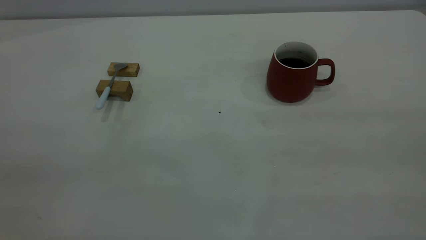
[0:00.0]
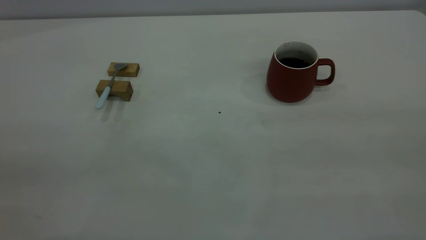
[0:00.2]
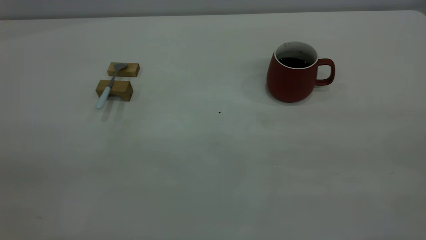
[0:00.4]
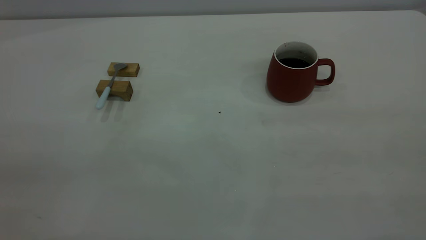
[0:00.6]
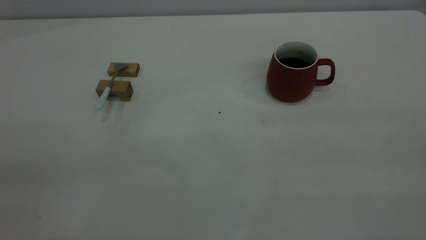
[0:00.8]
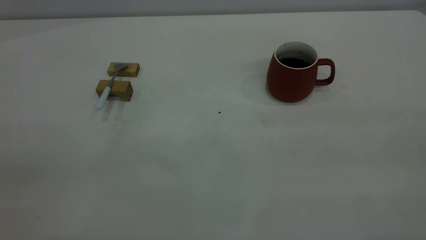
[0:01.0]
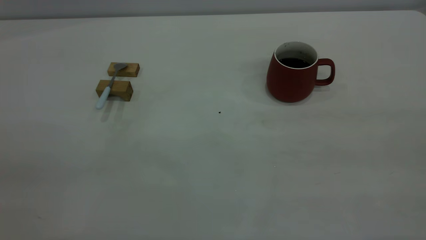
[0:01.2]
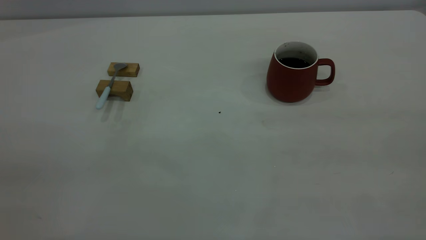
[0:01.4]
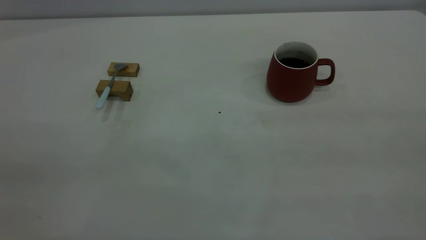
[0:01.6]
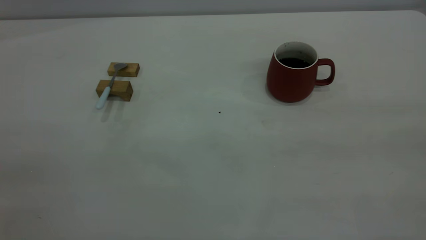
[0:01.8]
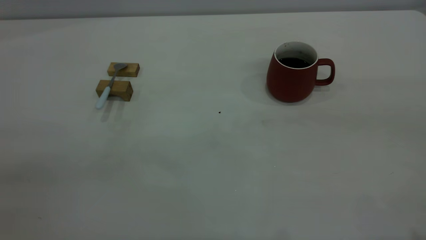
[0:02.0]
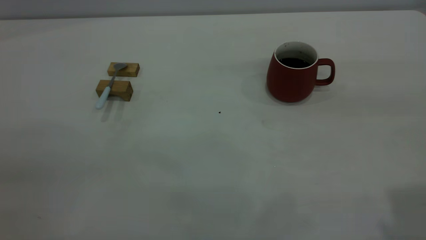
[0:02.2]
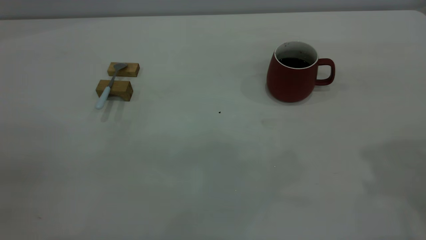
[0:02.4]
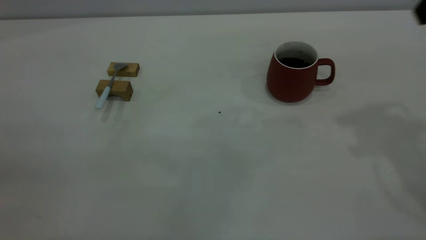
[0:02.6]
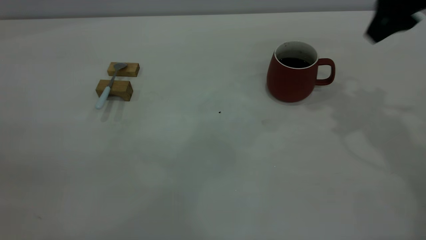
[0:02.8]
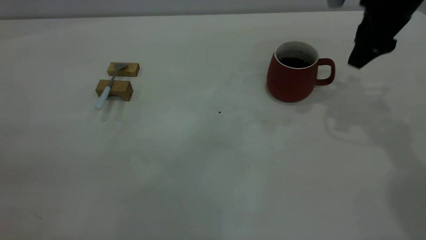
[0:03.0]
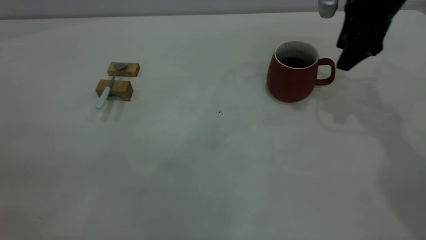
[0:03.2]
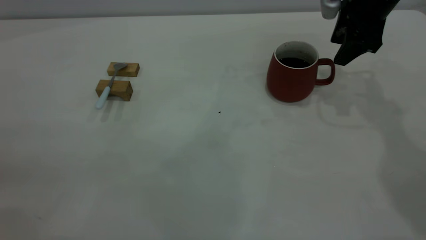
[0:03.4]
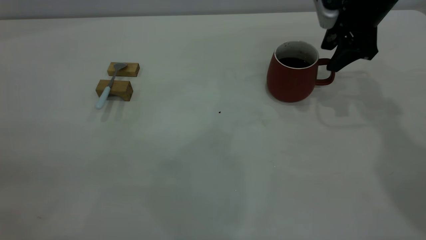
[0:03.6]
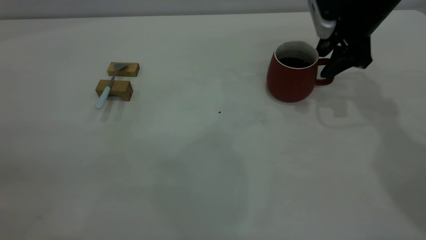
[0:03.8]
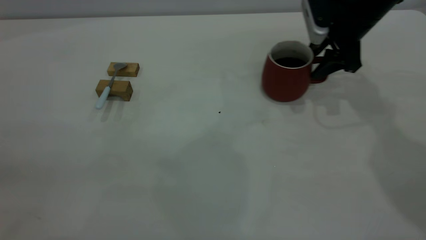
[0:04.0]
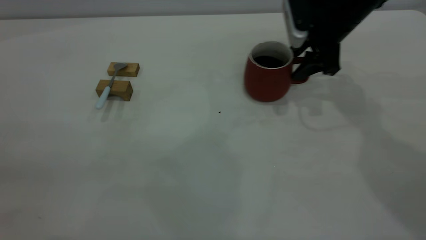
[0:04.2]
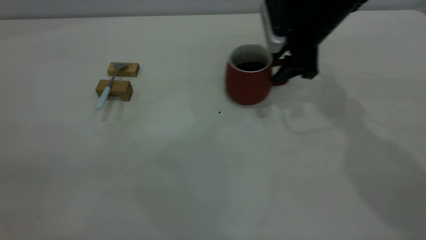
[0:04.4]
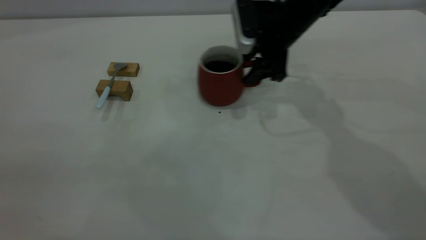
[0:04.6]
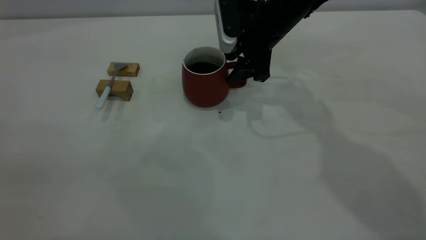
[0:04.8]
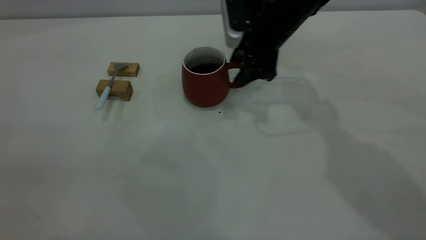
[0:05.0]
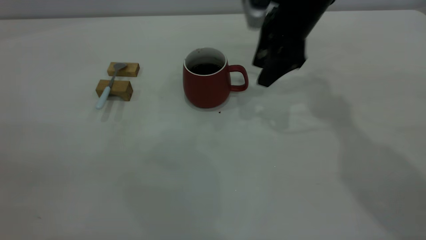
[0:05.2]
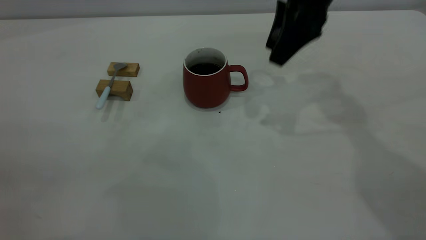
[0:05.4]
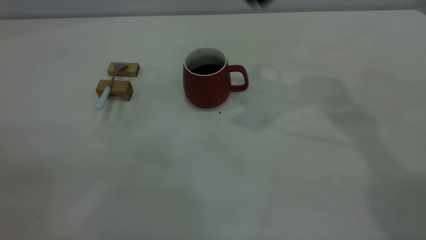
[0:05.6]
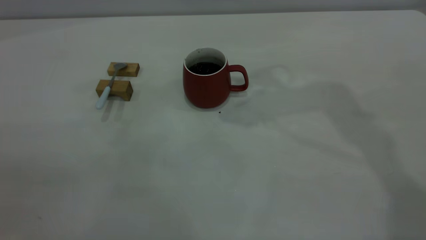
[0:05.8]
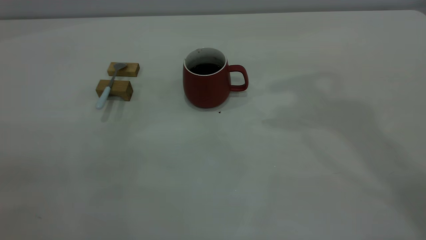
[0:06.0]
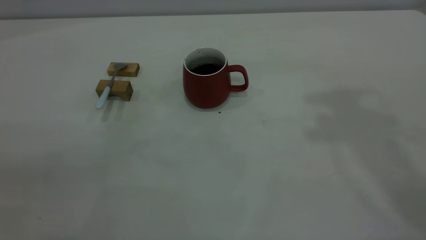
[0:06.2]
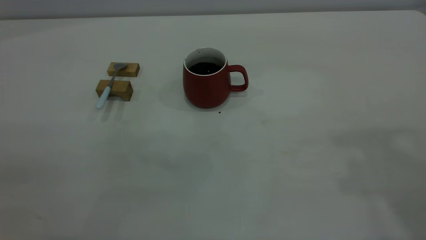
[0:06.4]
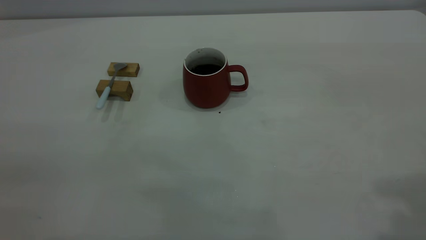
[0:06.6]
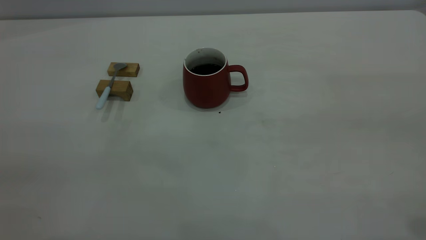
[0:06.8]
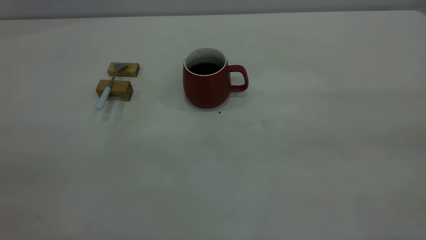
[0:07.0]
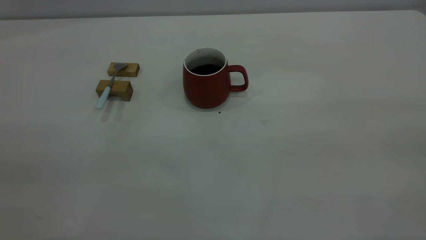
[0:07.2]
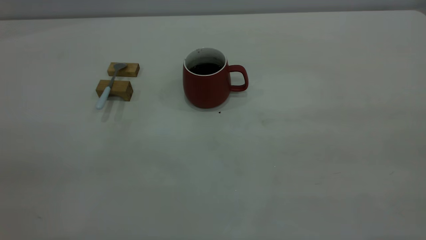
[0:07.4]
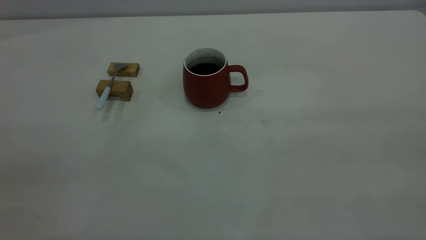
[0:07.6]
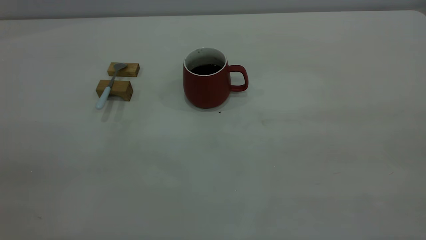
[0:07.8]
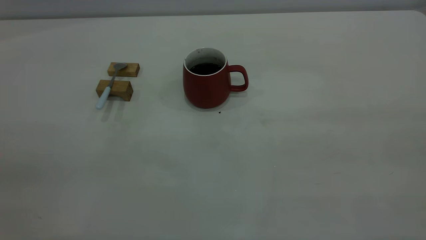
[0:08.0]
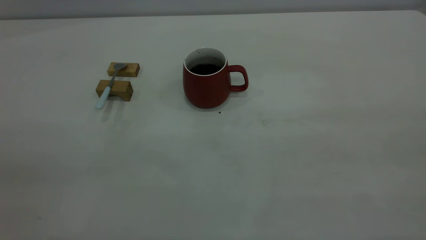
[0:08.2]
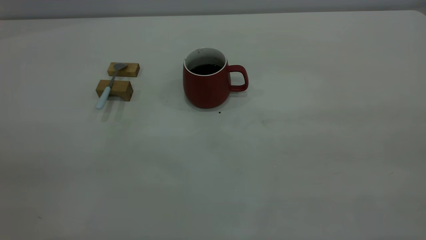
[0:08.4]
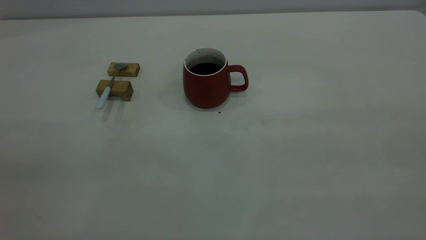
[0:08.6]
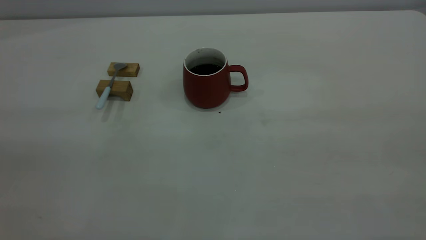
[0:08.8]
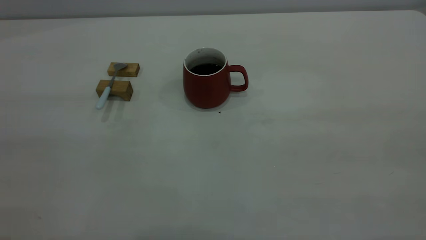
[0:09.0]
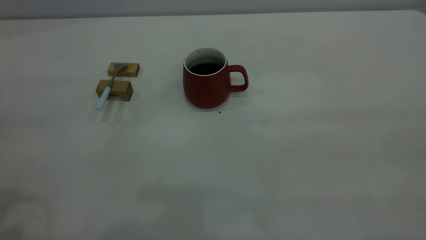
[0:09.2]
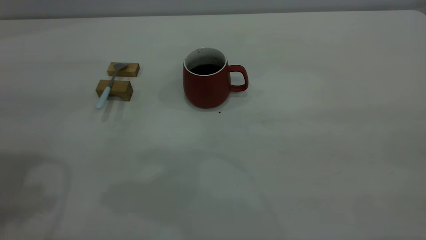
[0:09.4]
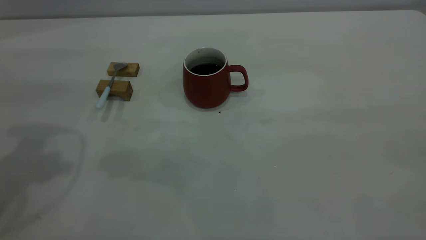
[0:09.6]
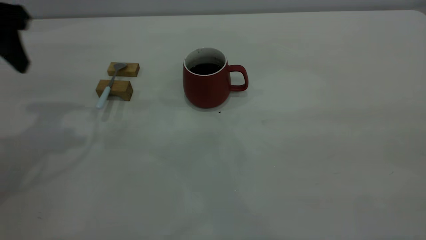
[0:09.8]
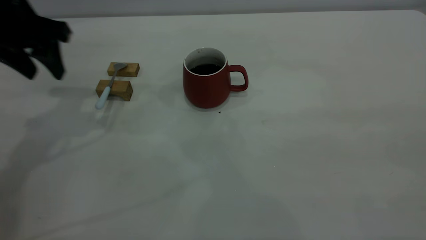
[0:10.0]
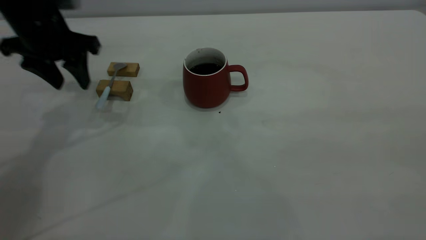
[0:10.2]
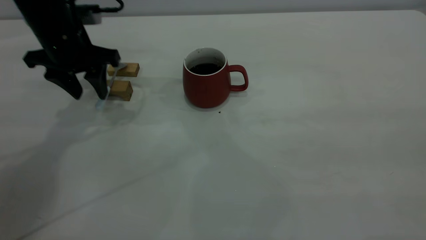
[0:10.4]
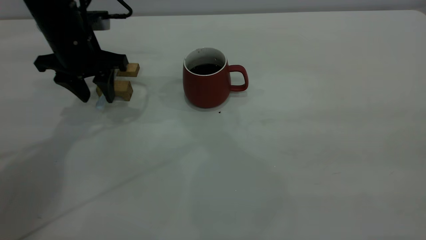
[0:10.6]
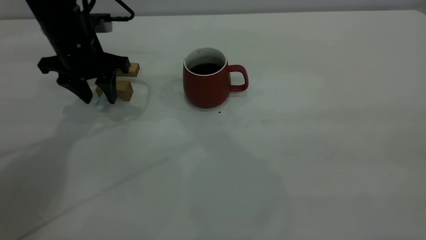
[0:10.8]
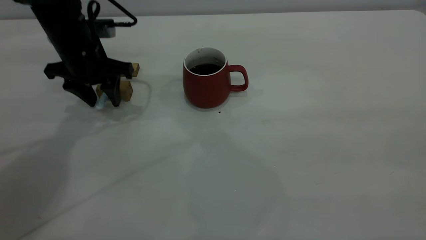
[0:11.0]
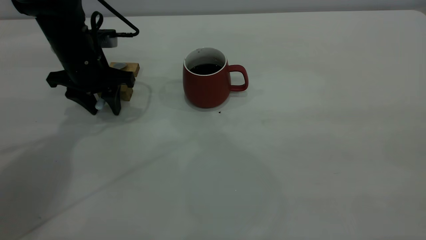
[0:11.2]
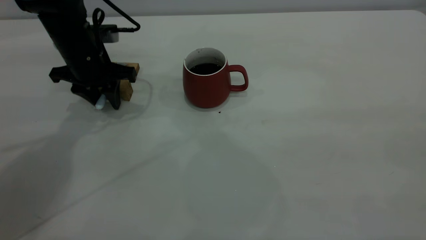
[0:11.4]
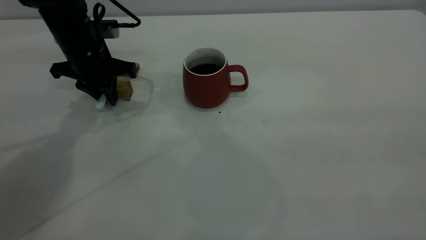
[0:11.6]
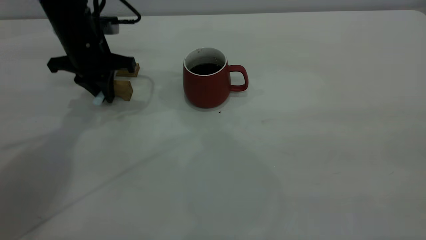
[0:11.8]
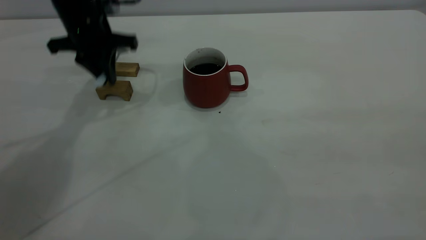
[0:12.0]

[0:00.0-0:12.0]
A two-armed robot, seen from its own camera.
Step, 0:00.0 to 0:05.2: Move the cup with coffee to the center of view.
0:00.0 to 0:01.6: Neither gripper changes place.
0:01.6 to 0:03.0: The right gripper is displaced forward and downward by roughly 40 cm.
0:03.0 to 0:04.4: The right gripper is displaced to the left and downward by roughly 10 cm.
0:04.4 to 0:06.0: The right gripper goes about 30 cm upward.
0:09.0 to 0:10.4: The left gripper shifts some 35 cm forward and downward.
0:10.4 to 0:12.0: The left gripper changes place by approximately 5 cm, and closes its fingers.

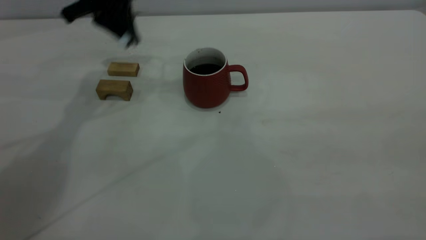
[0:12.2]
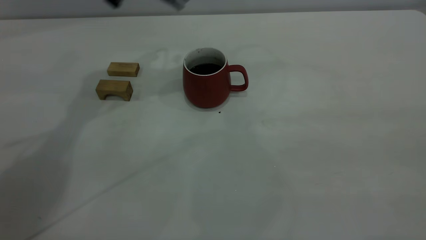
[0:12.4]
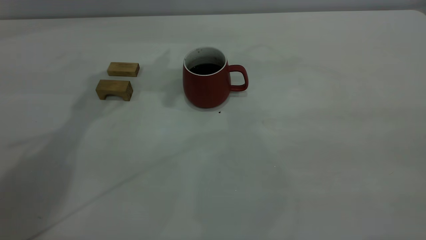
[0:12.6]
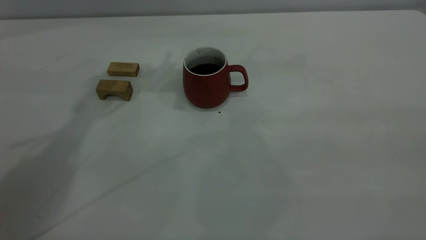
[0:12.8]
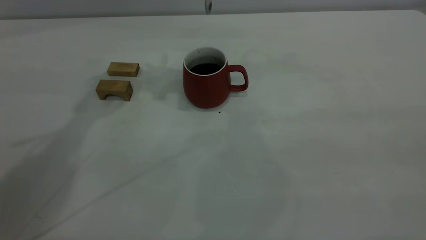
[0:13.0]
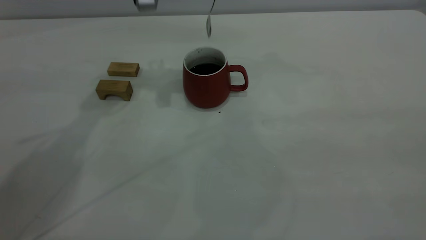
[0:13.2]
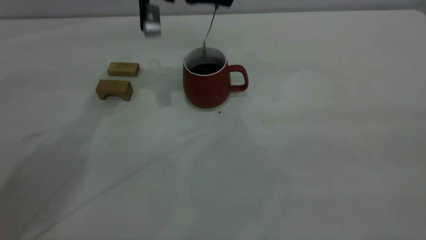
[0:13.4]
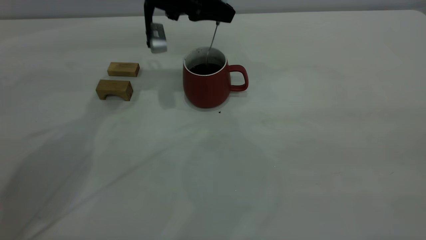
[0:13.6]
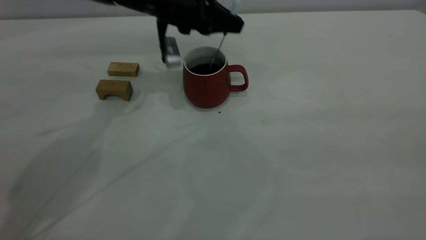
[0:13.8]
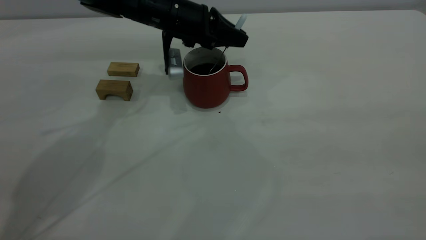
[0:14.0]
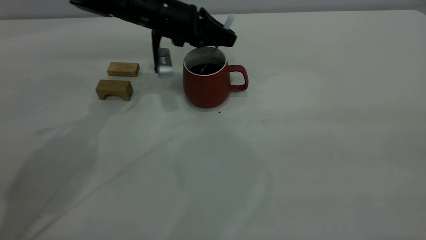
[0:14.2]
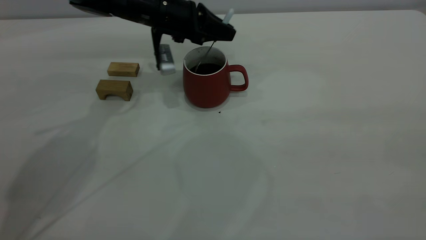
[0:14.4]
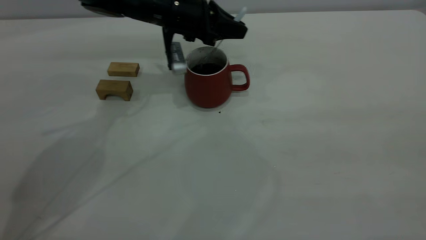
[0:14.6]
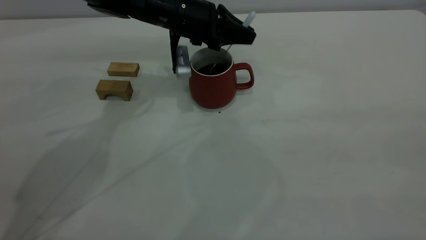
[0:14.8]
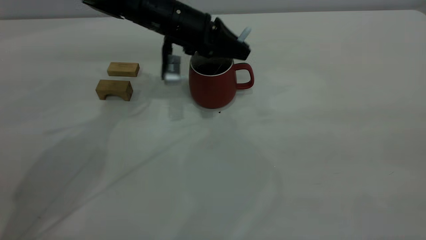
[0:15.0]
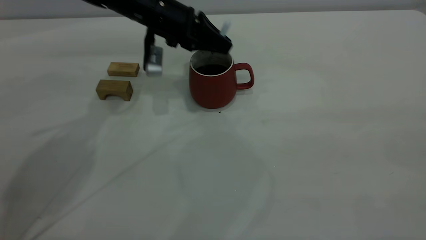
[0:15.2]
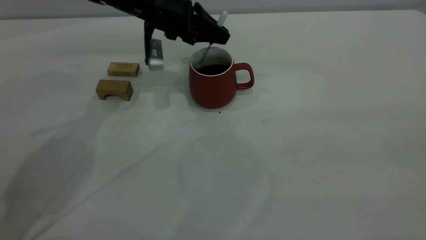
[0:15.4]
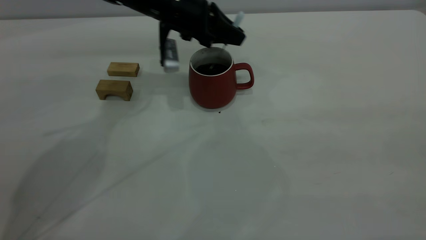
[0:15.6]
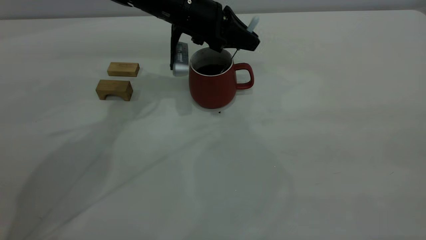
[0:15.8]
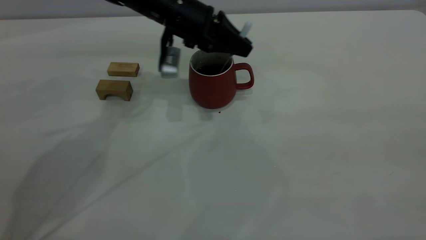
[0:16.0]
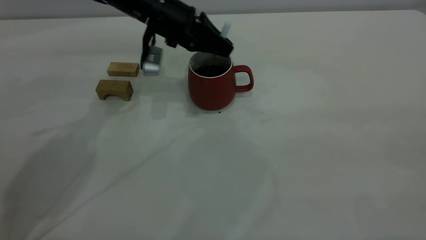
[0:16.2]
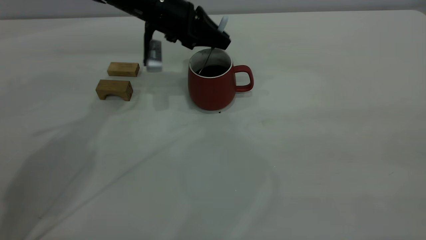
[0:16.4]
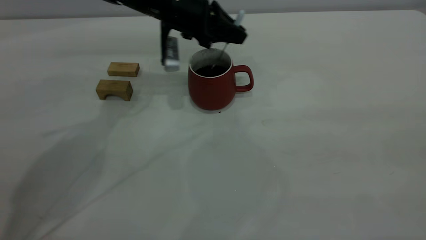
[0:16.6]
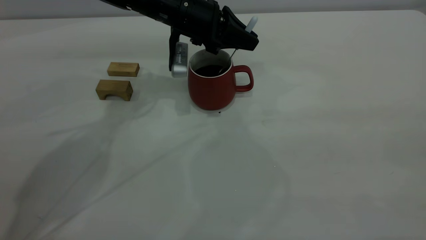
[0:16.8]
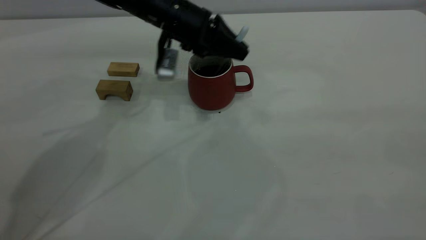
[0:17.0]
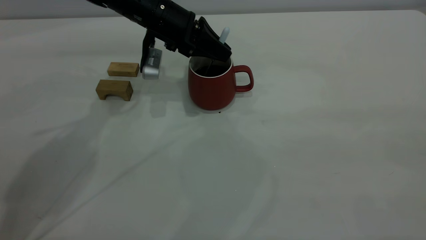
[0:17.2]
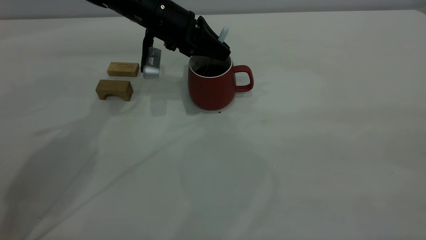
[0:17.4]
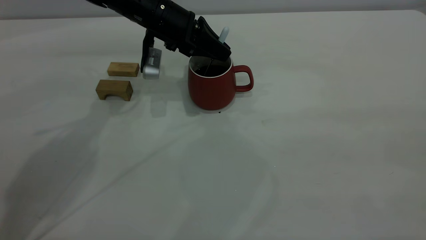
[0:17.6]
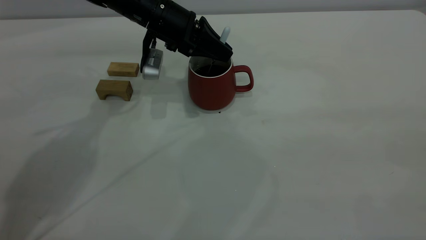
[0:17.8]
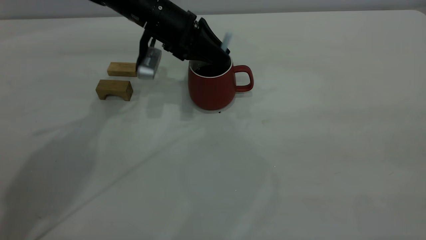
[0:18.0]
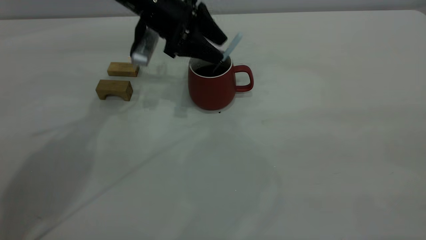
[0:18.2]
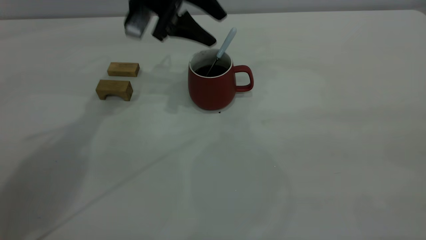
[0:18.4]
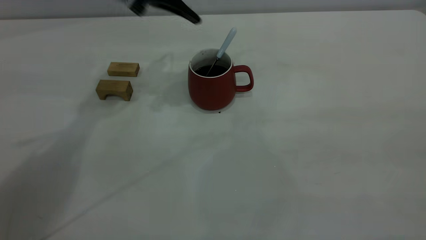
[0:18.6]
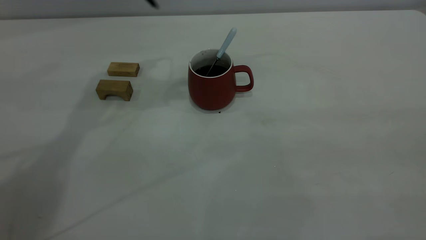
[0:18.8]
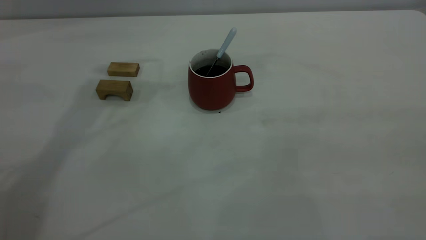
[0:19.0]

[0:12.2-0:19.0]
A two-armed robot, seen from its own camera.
Step, 0:12.2 to 0:18.4: Stir the coffee in the cup.
0:12.2 to 0:13.6: The left gripper heads downward and to the right, covering approximately 10 cm.
0:13.6 to 0:15.0: The left gripper changes place by some 5 cm.
0:15.0 to 0:17.6: There are only small adjustments of the grippers.
0:17.6 to 0:19.0: The left gripper heads upward, covering roughly 25 cm, and opens.
